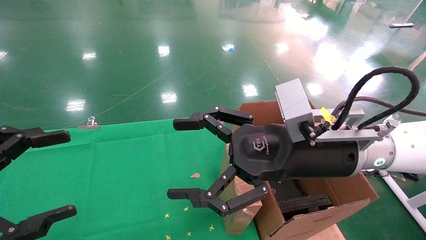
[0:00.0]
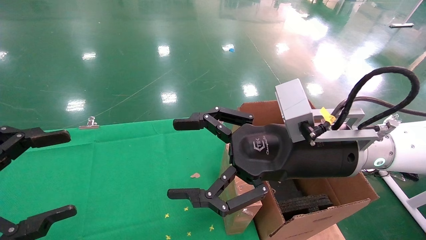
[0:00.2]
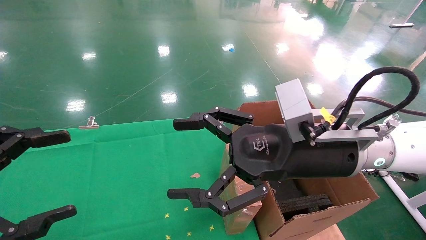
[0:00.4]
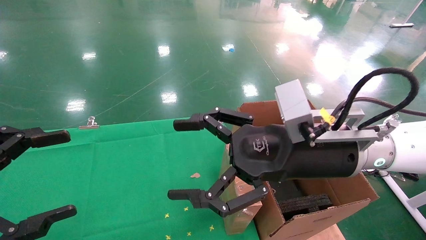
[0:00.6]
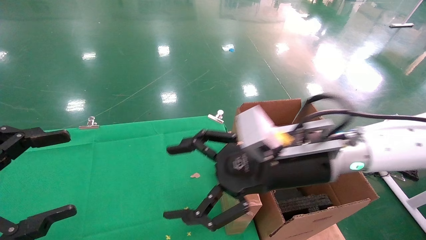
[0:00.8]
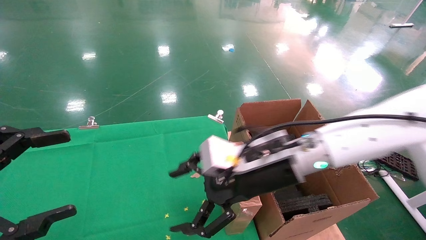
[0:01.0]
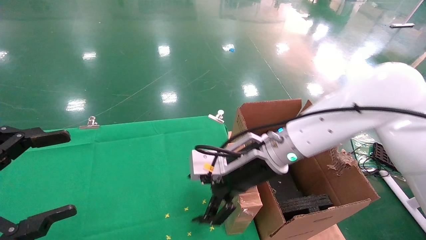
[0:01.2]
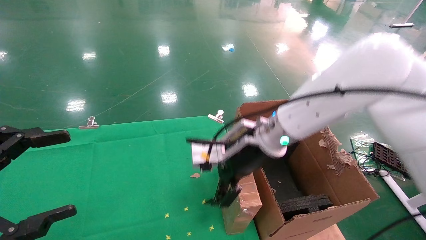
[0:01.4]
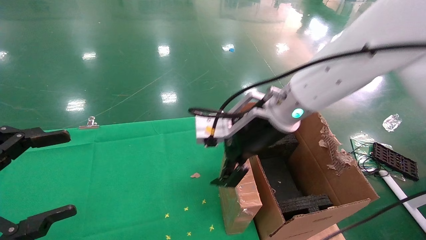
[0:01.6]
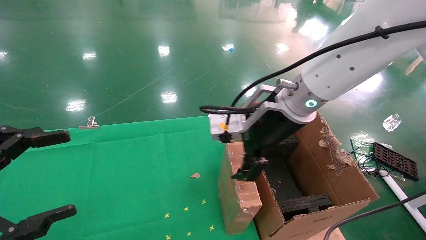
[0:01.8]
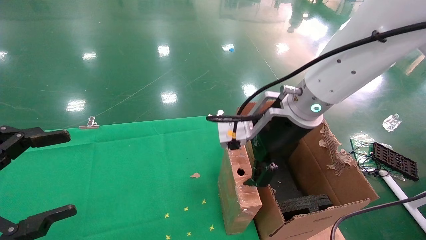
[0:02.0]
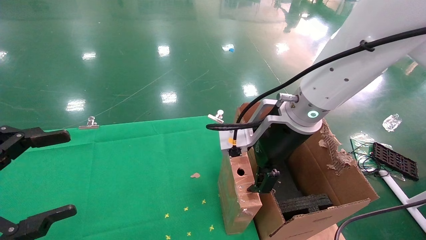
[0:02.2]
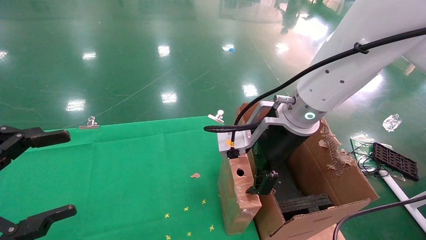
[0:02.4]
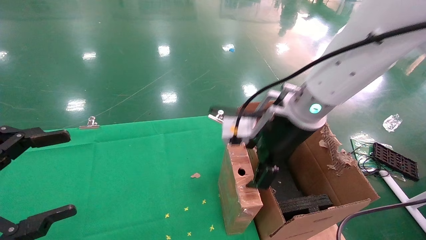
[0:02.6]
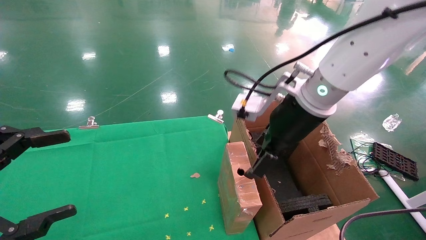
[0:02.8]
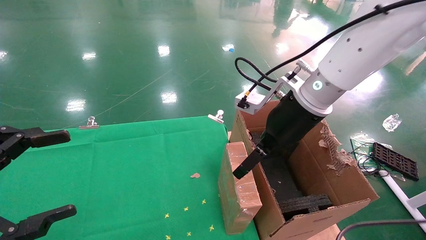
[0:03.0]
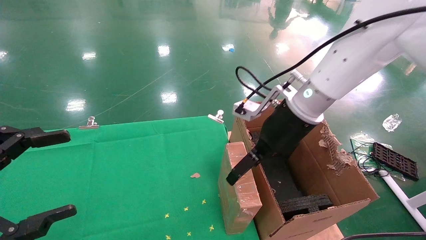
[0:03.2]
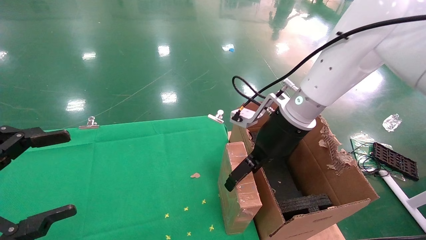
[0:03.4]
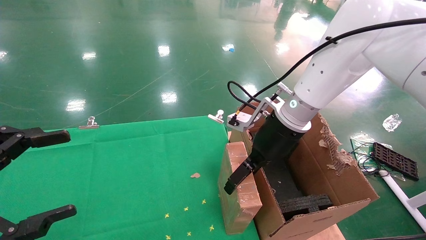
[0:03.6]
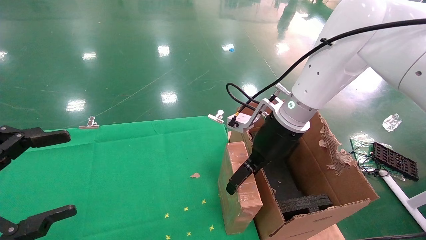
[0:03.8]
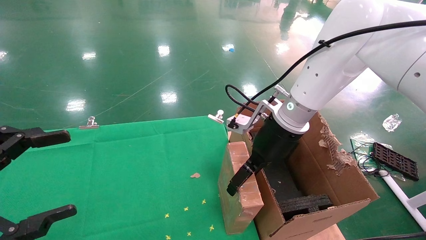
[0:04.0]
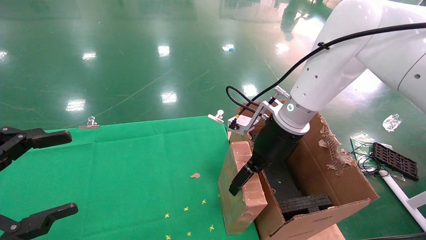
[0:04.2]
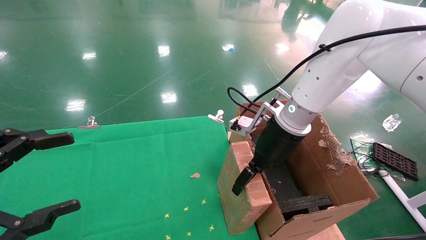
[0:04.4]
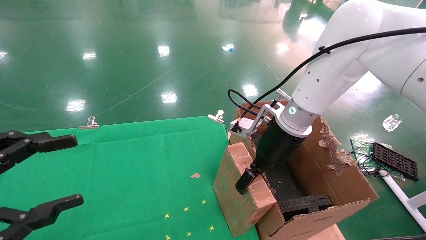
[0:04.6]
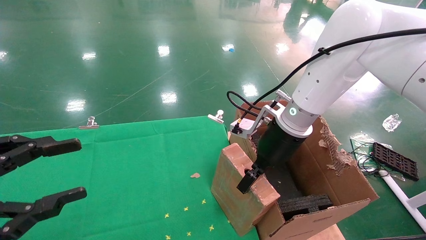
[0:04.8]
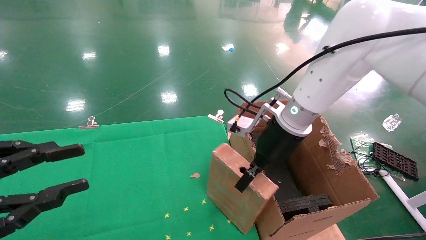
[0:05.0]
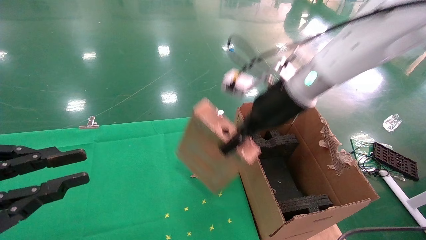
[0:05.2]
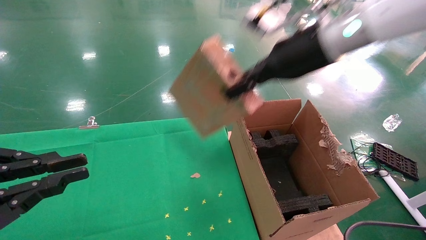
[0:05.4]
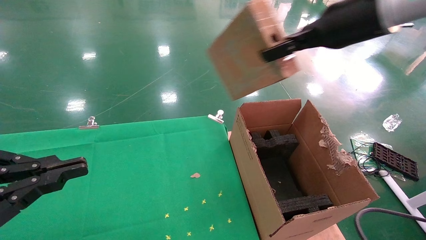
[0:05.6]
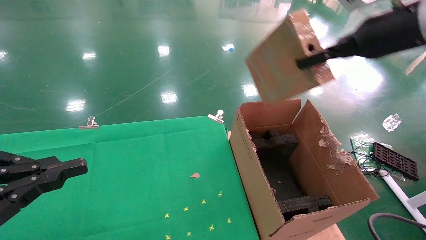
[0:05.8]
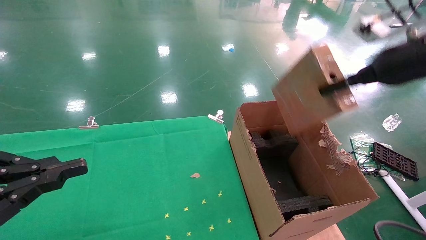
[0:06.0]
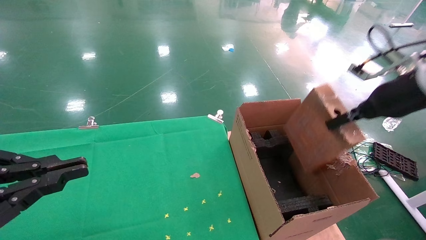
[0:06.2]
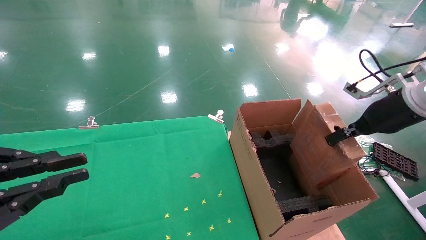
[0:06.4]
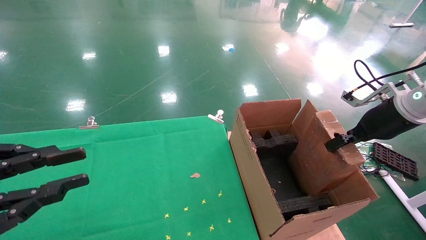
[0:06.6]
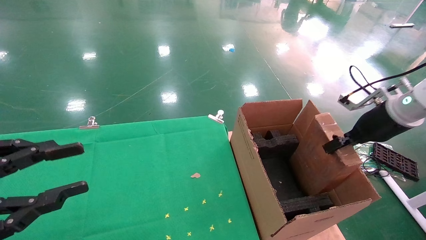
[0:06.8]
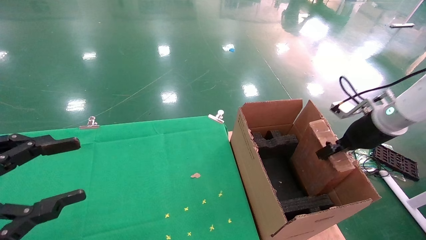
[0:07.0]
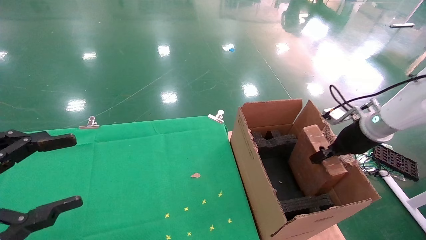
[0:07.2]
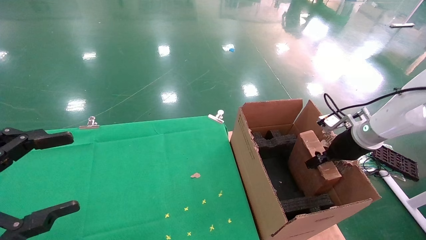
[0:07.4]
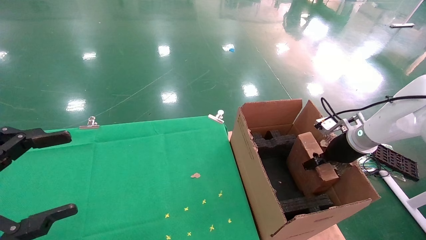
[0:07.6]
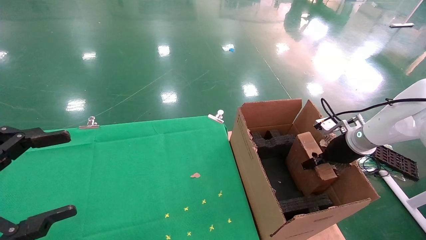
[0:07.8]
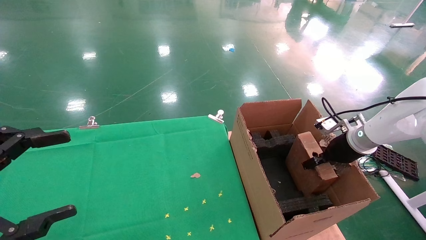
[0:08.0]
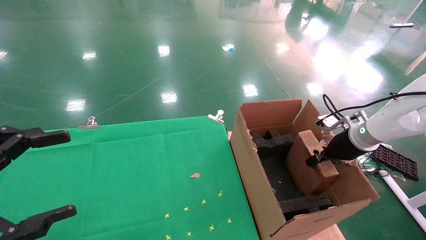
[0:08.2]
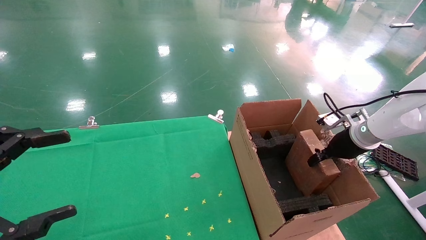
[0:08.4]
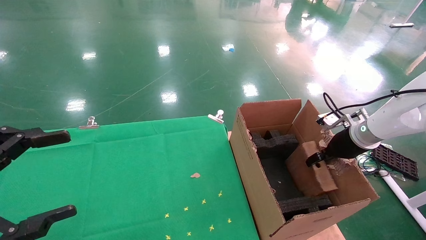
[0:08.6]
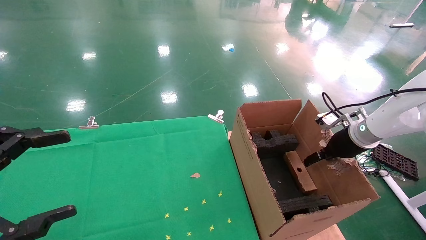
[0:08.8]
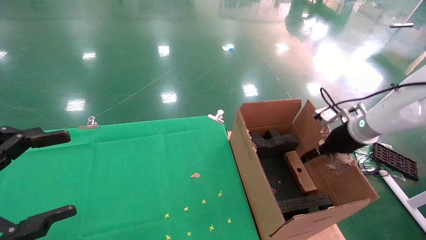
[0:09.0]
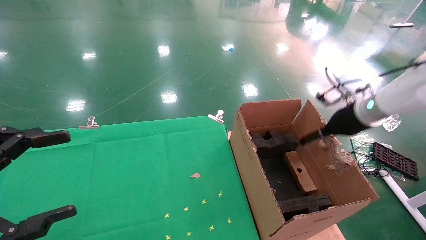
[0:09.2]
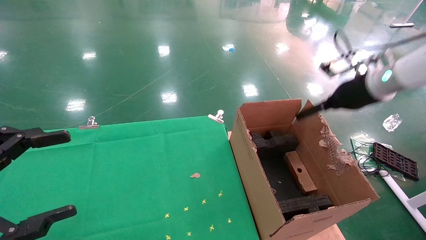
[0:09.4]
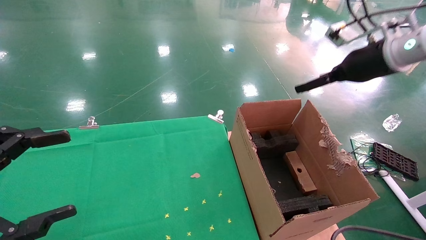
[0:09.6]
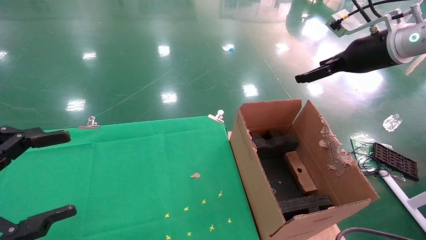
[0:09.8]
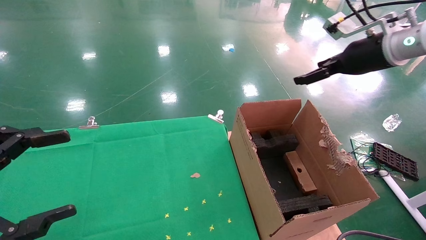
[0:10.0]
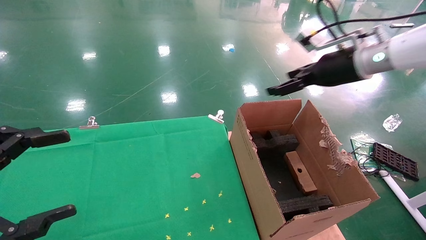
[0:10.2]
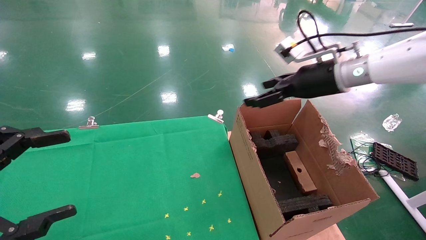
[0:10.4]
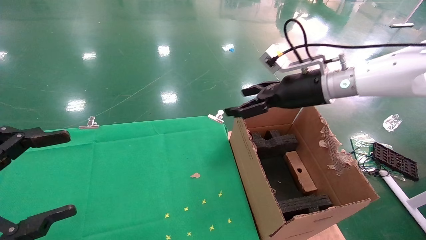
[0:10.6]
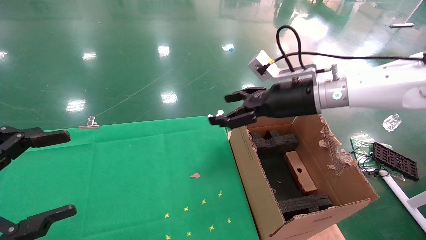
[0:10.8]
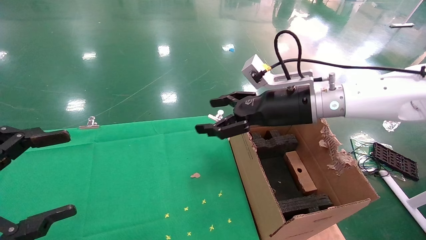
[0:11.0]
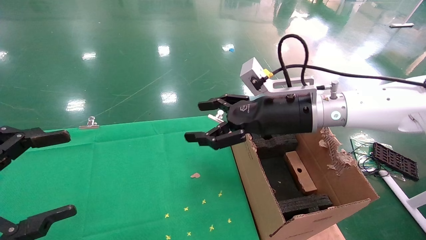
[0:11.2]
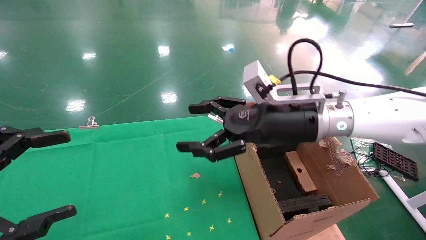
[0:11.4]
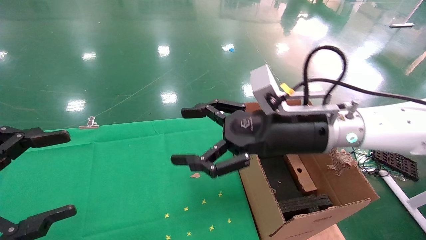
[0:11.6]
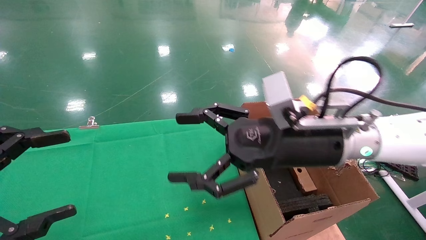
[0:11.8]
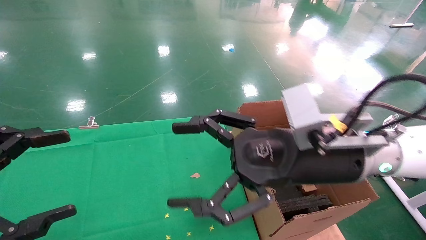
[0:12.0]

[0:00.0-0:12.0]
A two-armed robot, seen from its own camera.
Task of the whole recording: using a robotic arm to pick up a cardboard box and palace it the carton.
Step, 0:00.8 to 0:05.0: Pick up the mouse and the power cord paper box.
Step, 0:05.2 to 0:09.0: Place the mouse and the power cord paper box into the container.
0:00.0 to 0:01.6: The right gripper moves forward, approximately 10 cm.
0:01.6 to 0:03.0: The right gripper heads to the right, covering about 5 cm.
0:03.0 to 0:04.4: The right gripper changes place by roughly 5 cm.
0:04.4 to 0:06.0: The left gripper closes its fingers, while the right gripper is displaced to the right and upward by about 25 cm, and closes.
0:06.0 to 0:07.6: The right gripper goes about 20 cm downward and forward, while the left gripper opens up.
0:07.6 to 0:09.0: The right gripper opens its fingers.
0:09.0 to 0:10.4: The right gripper heads upward and to the left, covering approximately 15 cm.
0:10.4 to 0:12.0: The right gripper goes roughly 20 cm backward, to the left and downward.

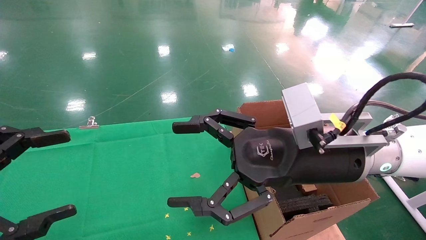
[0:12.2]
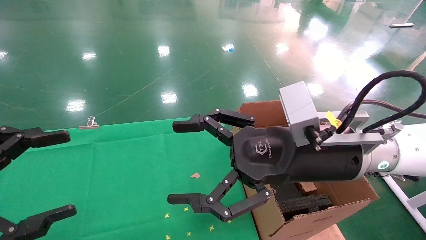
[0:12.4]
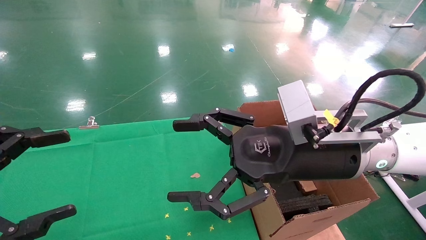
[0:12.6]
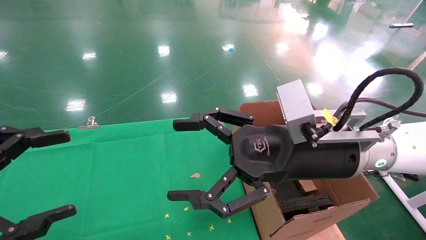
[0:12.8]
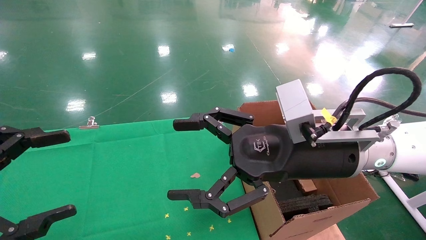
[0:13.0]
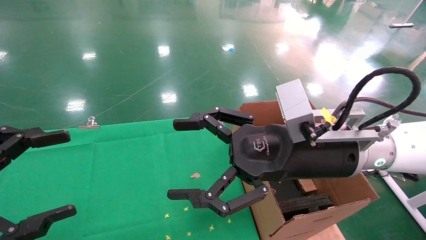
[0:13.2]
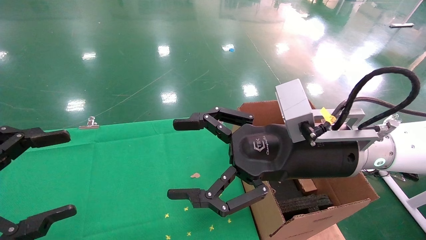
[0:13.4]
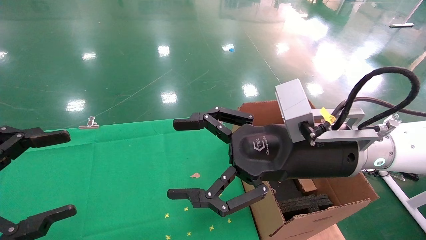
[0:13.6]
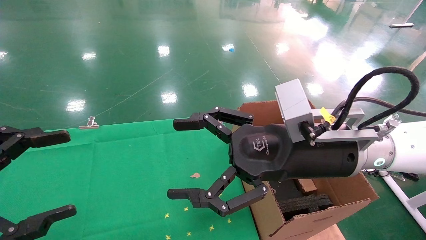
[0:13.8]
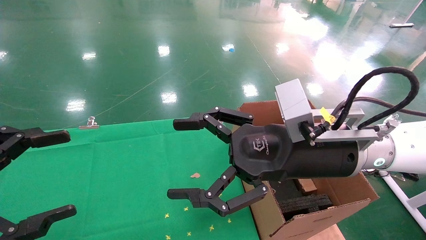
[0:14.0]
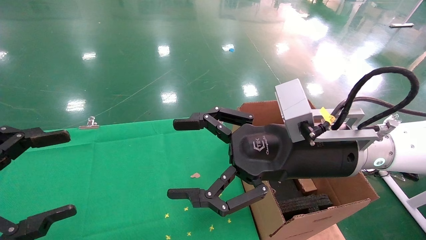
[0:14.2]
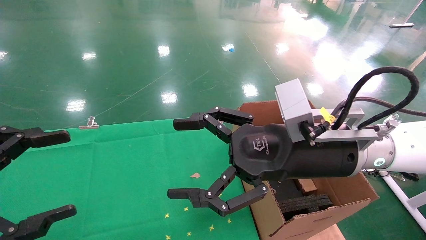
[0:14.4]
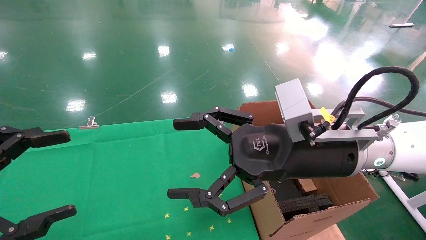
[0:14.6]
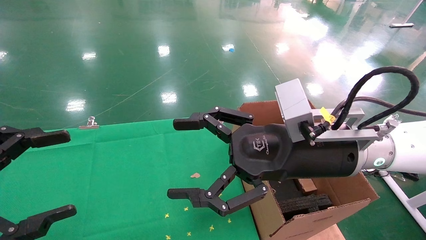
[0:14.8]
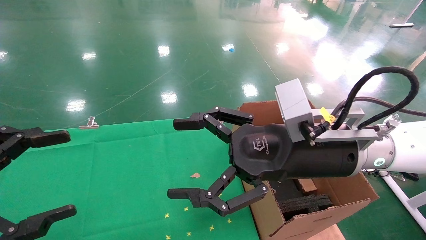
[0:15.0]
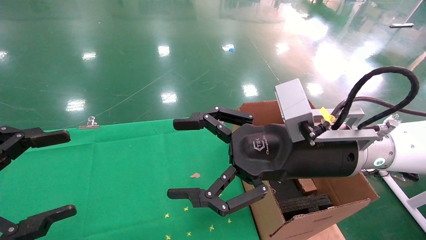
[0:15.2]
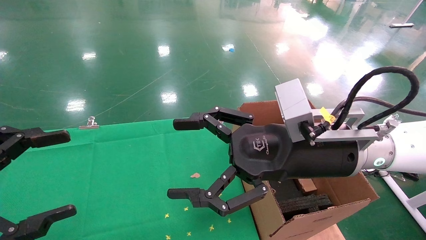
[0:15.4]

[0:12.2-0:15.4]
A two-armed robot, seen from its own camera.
Task of the whole recording: using a robotic arm to pick up a cardboard box and palace it the carton.
0:12.2 to 0:15.4: The two grippers keep their place.

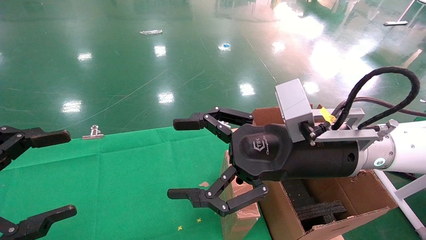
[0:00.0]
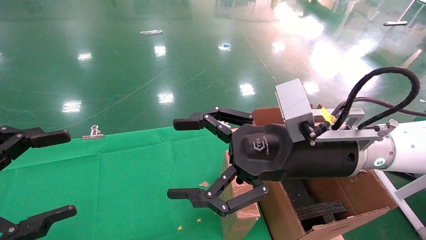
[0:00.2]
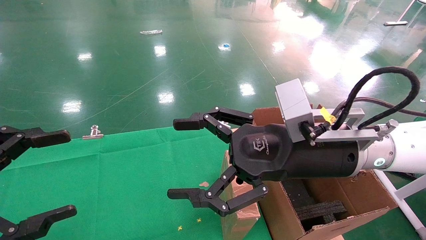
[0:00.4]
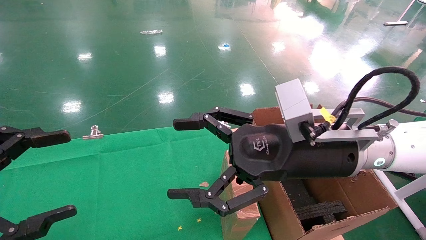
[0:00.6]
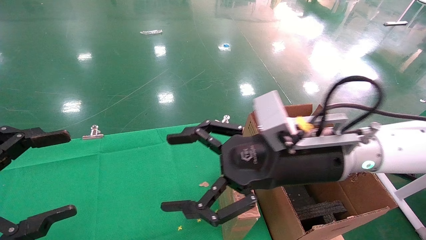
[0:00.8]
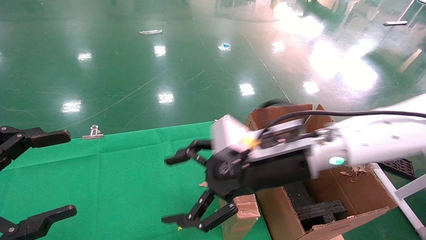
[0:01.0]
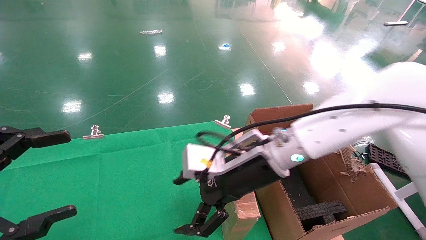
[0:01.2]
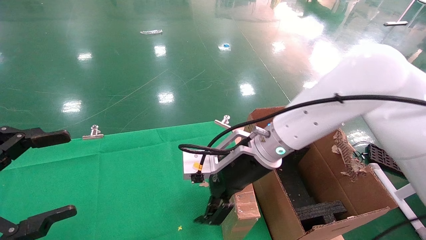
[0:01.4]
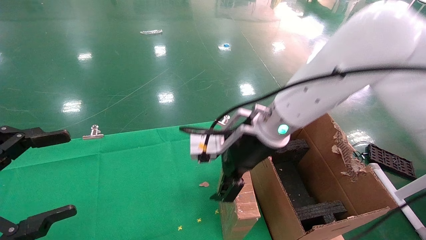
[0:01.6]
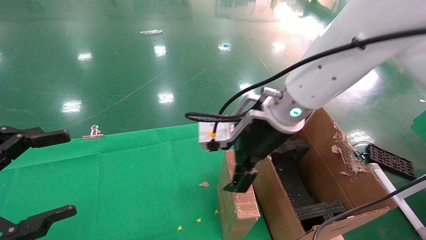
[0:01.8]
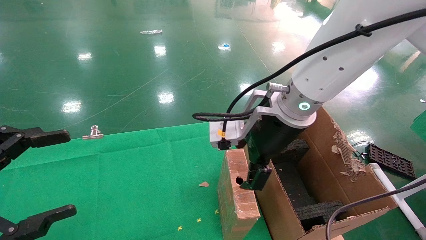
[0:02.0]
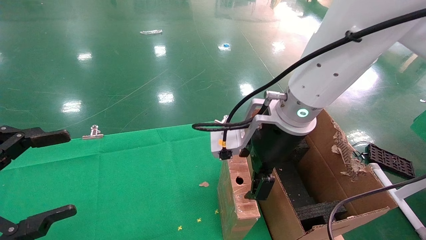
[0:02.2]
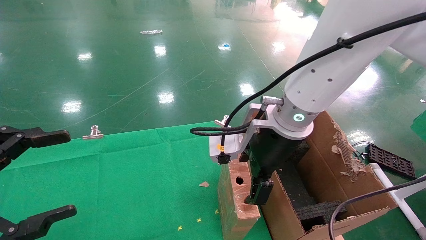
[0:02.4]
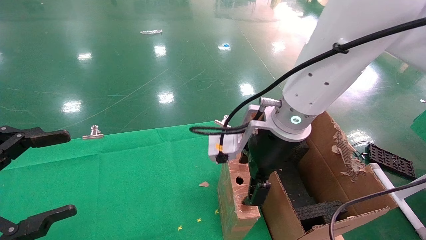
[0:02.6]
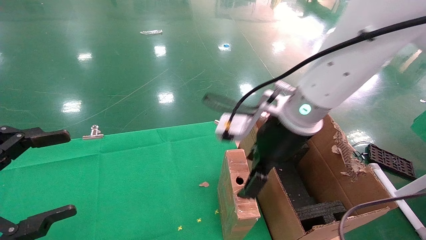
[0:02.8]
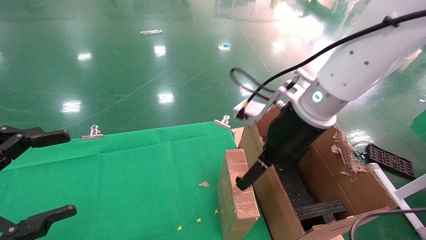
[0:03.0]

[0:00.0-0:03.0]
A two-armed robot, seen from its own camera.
Task of the whole recording: using a robotic arm to pick up a cardboard box and palace it the carton.
0:00.0 to 0:01.6: The right gripper shifts some 10 cm forward and to the left.
0:01.6 to 0:03.0: The right gripper goes roughly 5 cm to the right.
